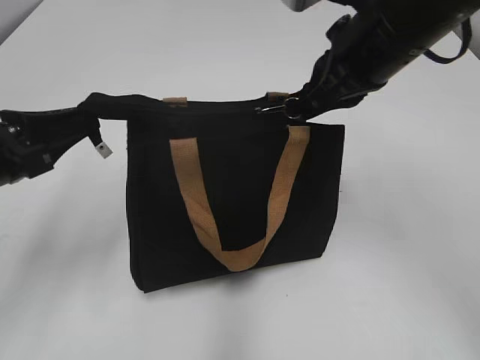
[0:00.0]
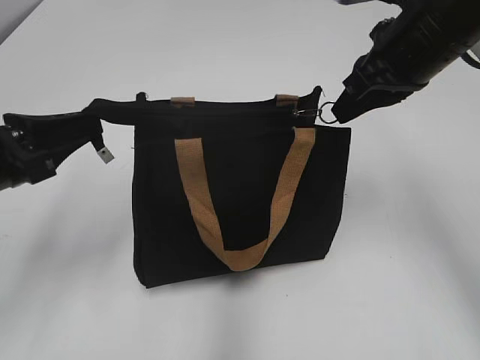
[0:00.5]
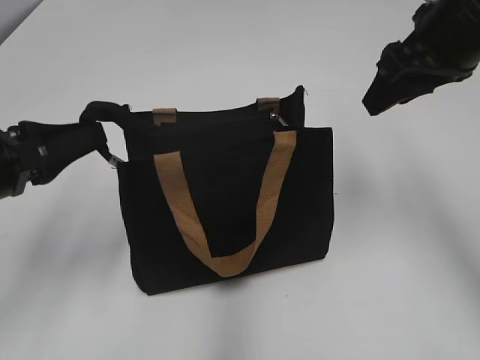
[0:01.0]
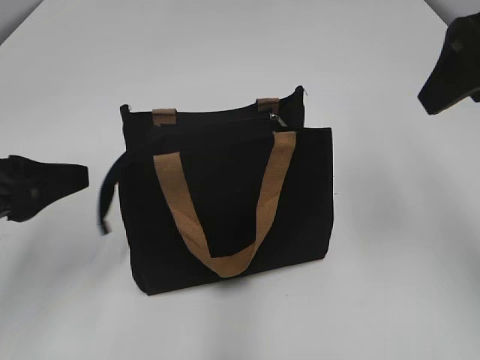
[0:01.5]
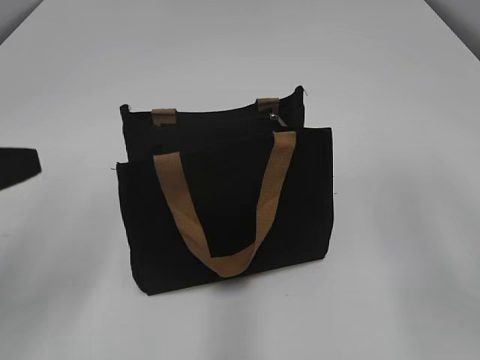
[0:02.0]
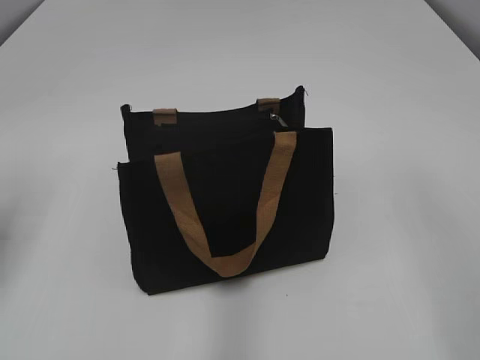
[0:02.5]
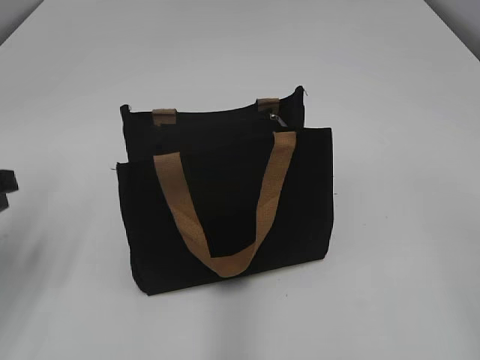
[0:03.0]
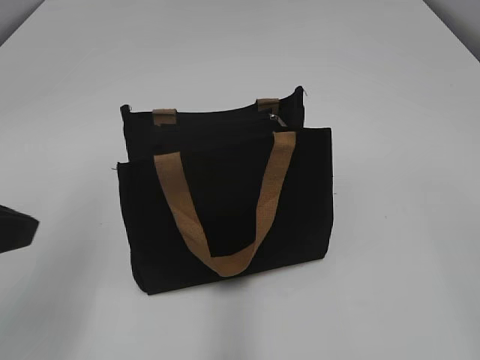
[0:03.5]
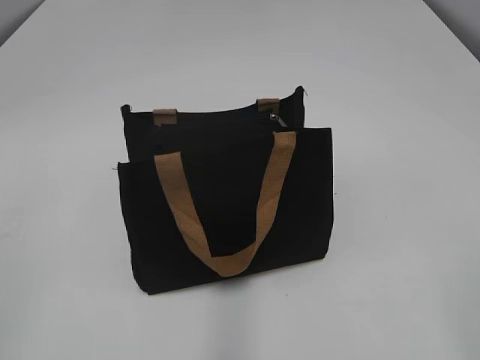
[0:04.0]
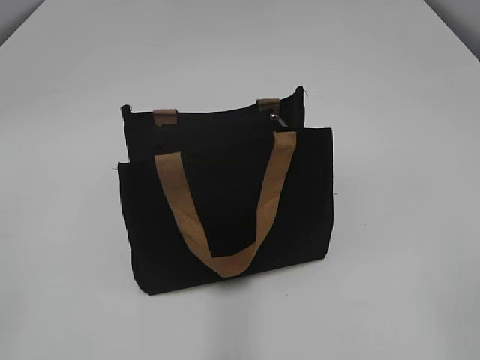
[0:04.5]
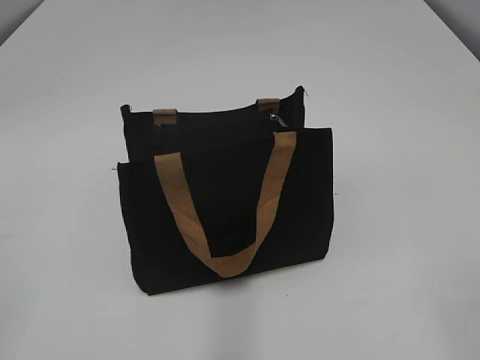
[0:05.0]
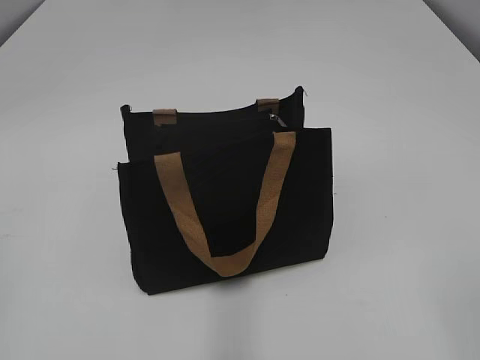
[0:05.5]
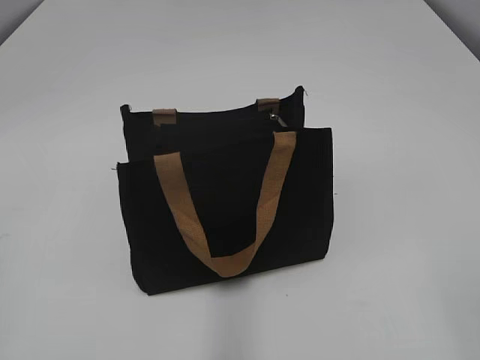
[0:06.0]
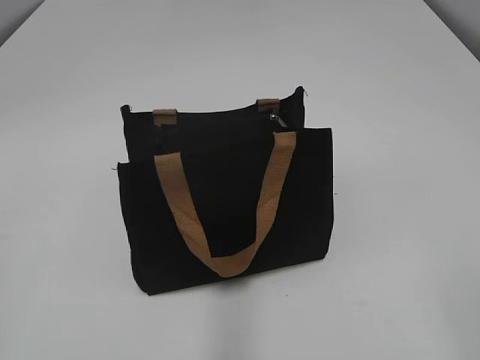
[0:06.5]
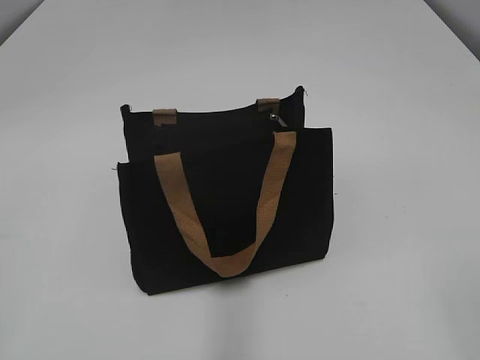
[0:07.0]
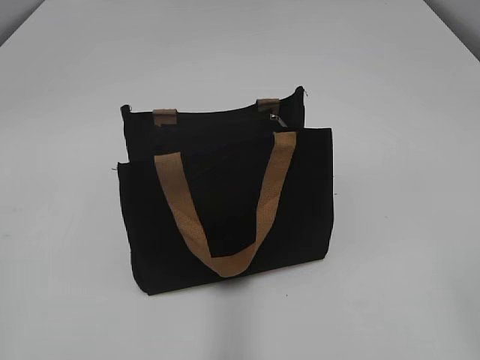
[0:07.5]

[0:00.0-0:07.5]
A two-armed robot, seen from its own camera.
Step, 0:01.0 to 0:01.5: Grab the zipper with your left hand.
0:00.0 to 0:02.0: The left gripper heads backward, covering about 5 cm, and opens up; the right gripper goes about 20 cm backward and to the right, and opens up.
0:02.0 to 0:04.0: The left gripper travels backward and upward by about 15 cm.

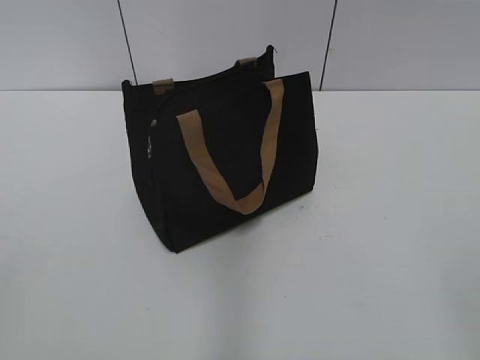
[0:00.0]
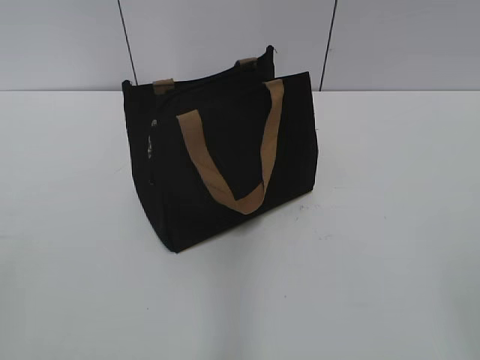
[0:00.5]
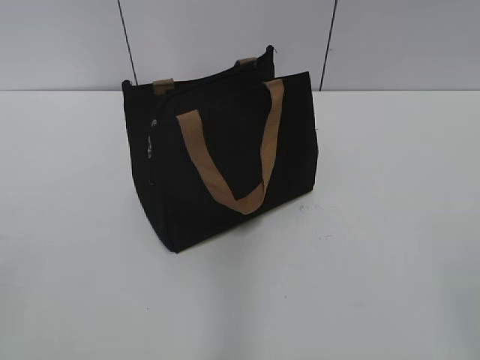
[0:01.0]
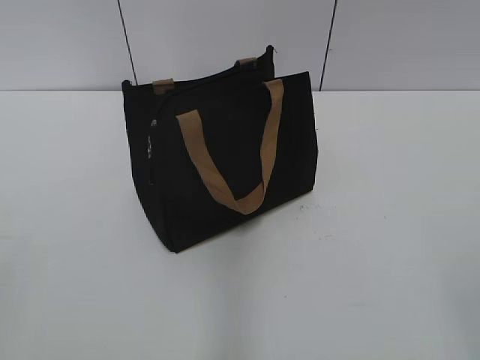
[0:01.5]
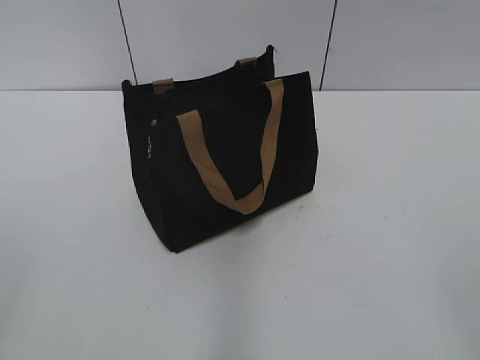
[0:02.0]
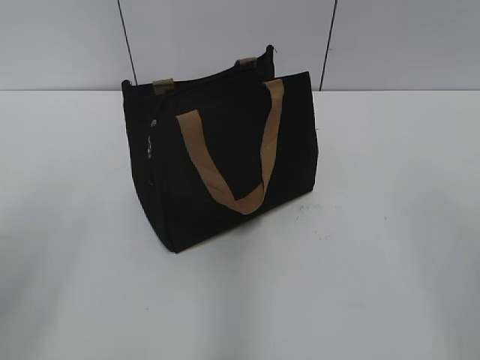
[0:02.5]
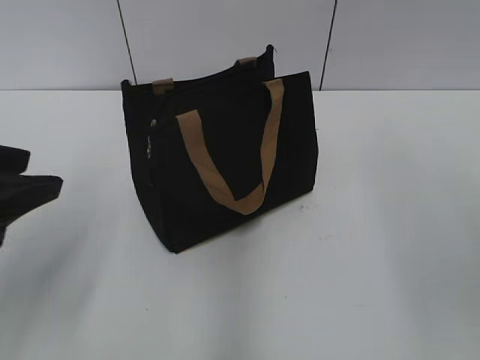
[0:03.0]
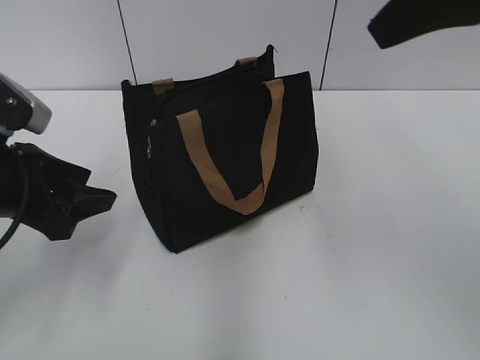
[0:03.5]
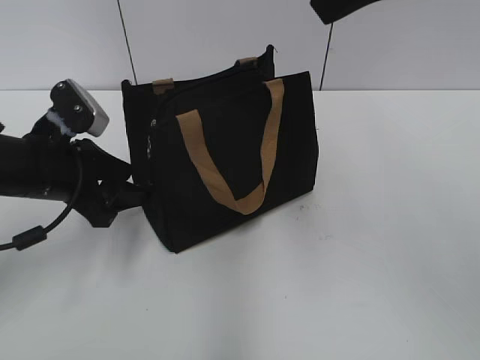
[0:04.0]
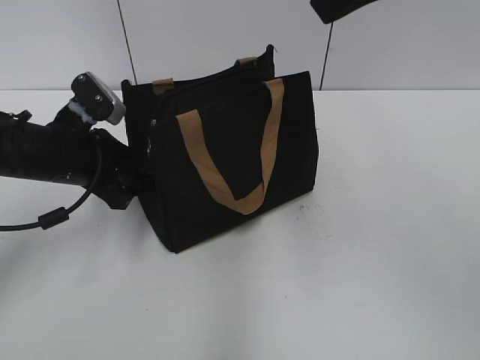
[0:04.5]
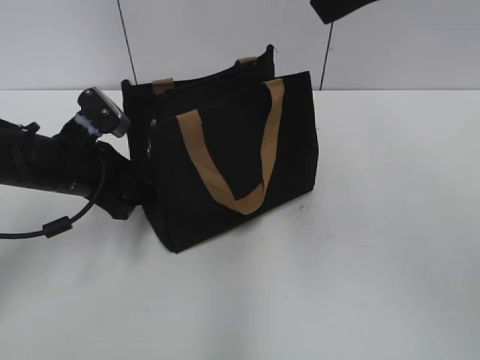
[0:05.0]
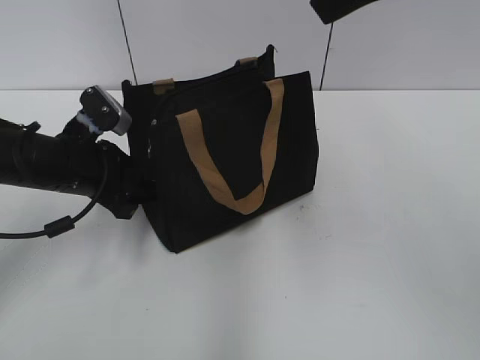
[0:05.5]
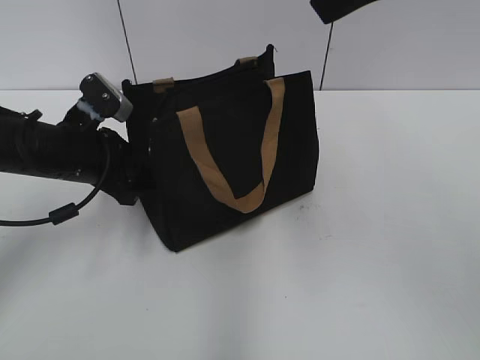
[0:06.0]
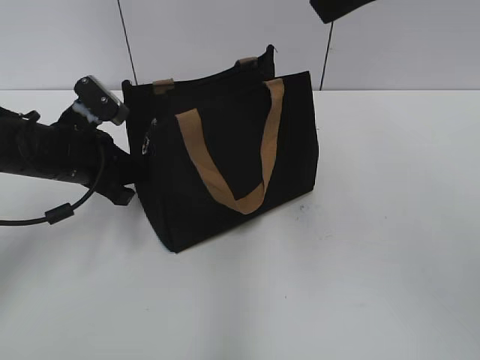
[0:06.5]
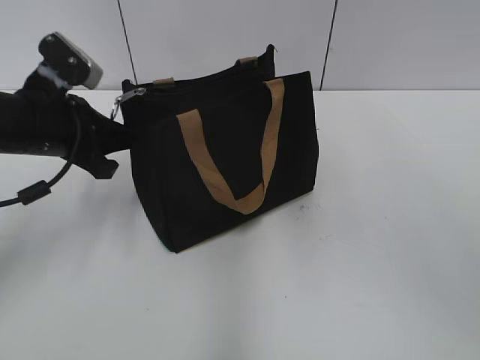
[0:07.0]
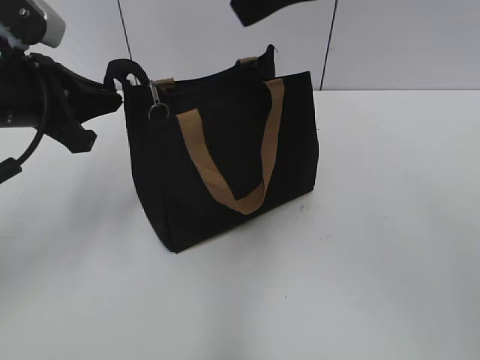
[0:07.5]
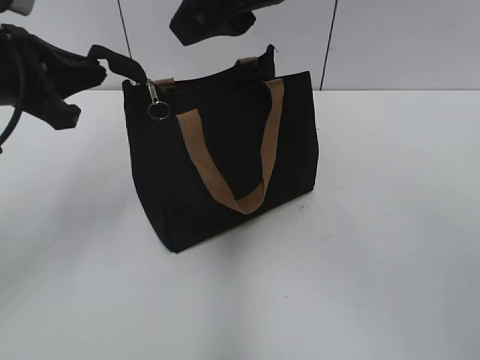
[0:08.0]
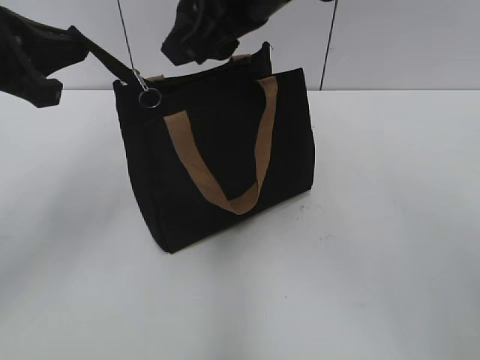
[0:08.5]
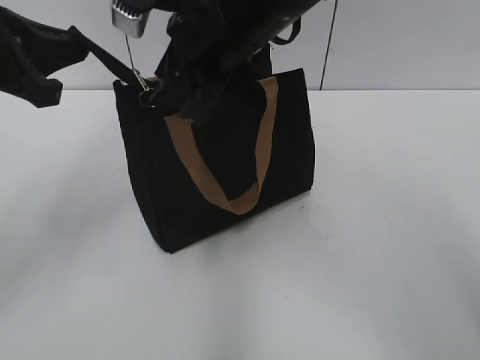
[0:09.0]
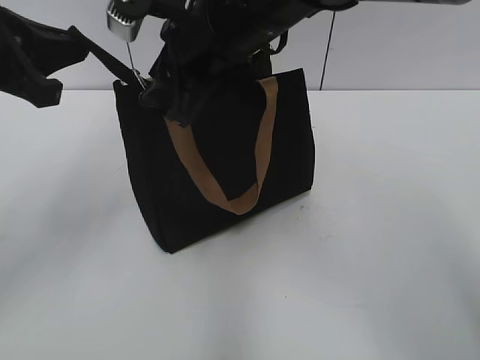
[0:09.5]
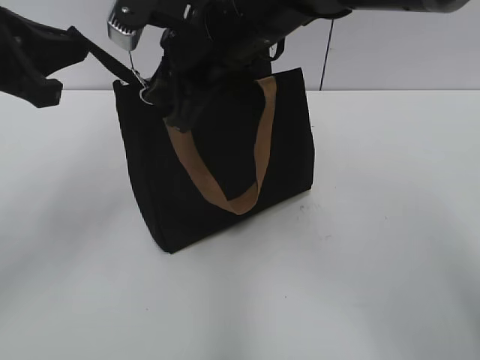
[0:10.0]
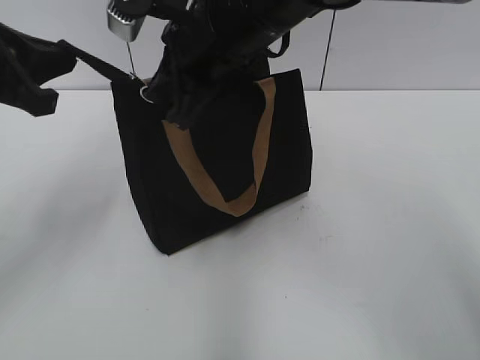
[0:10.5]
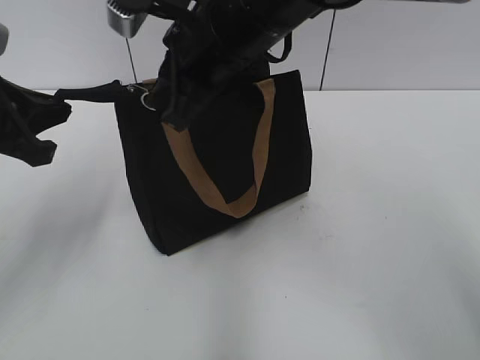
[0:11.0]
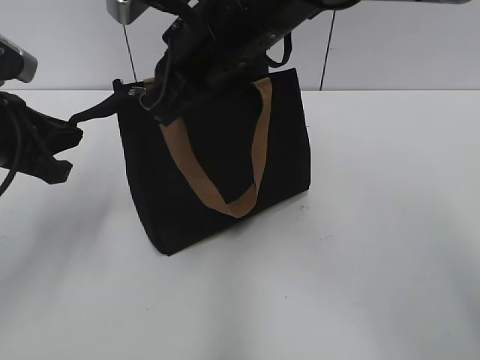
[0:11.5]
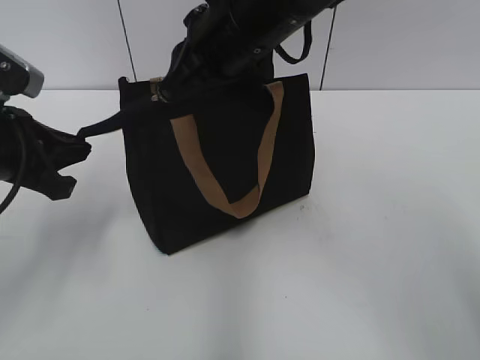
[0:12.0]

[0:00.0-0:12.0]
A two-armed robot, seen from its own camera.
0:02.0 to 0:04.0: The left gripper goes roughly 30 cm forward and downward.
0:04.0 to 0:06.0: There are only small adjustments of the grippers.
0:06.0 to 0:08.0: The right gripper is displaced to the left by approximately 10 cm. Meanwhile the left gripper is displaced upward by about 10 cm, and closes its fingers.
0:08.0 to 0:10.0: The right gripper goes some 10 cm downward, and closes.
0:10.0 to 0:12.0: The left gripper travels downward by some 10 cm.

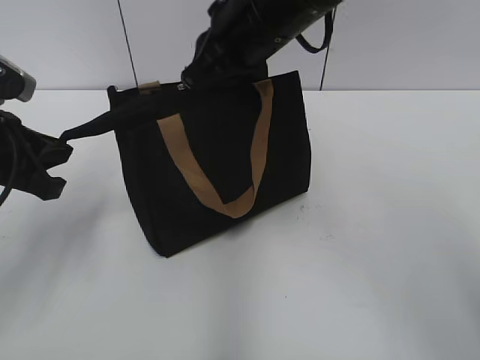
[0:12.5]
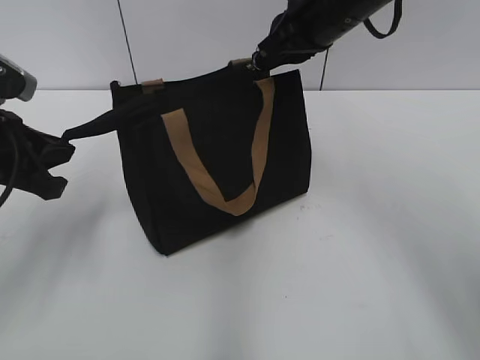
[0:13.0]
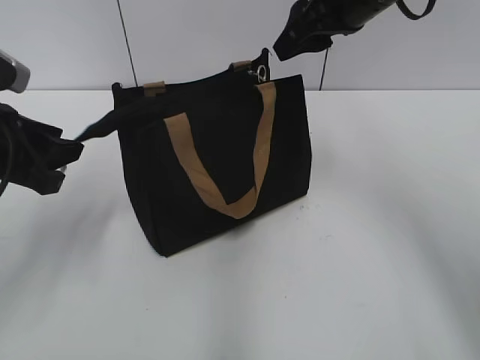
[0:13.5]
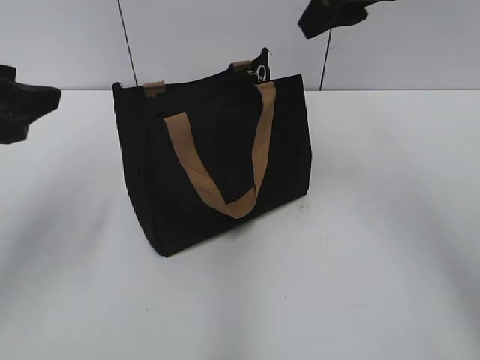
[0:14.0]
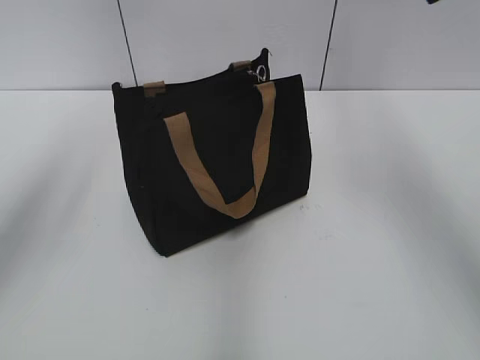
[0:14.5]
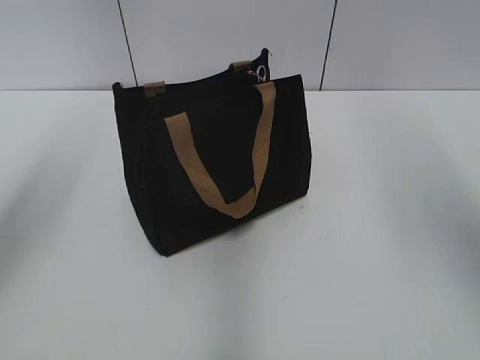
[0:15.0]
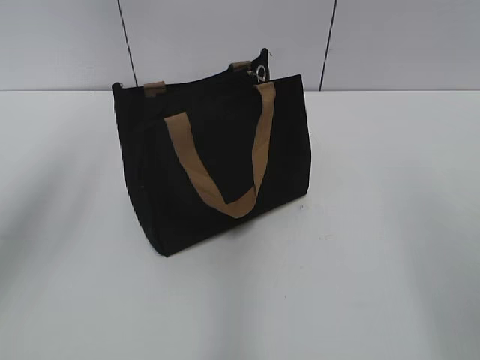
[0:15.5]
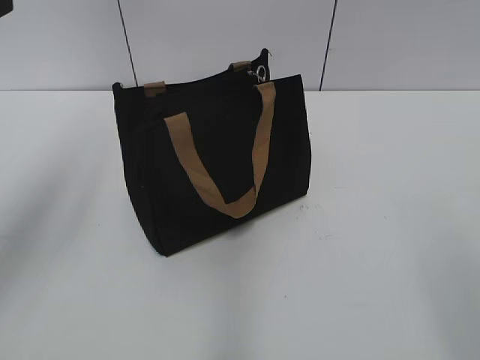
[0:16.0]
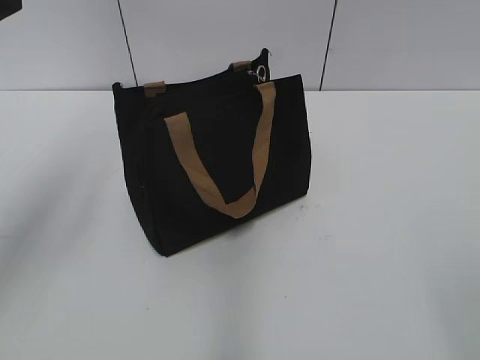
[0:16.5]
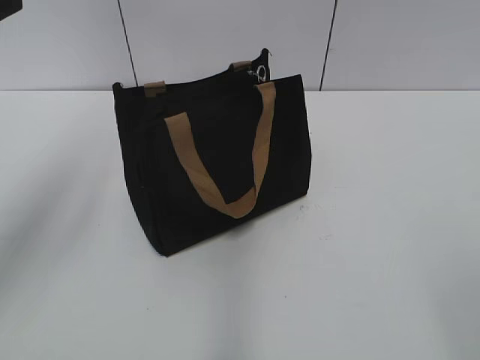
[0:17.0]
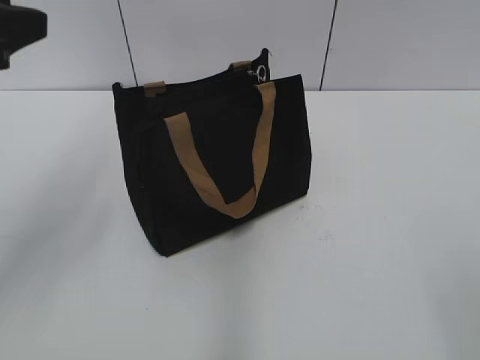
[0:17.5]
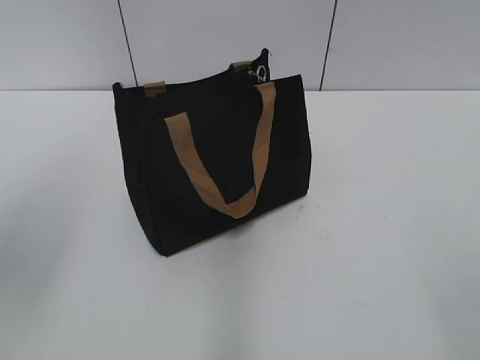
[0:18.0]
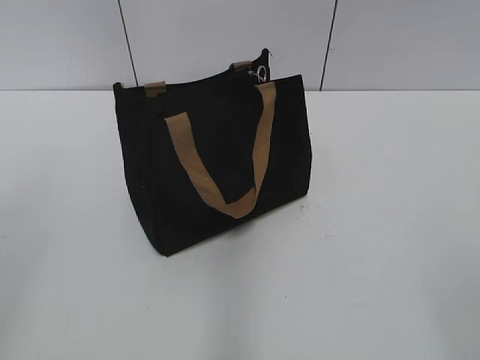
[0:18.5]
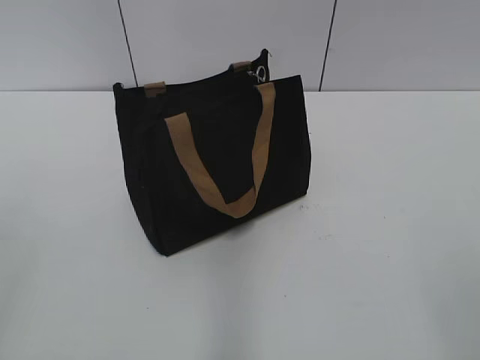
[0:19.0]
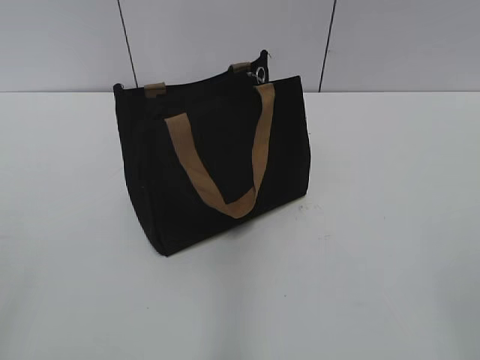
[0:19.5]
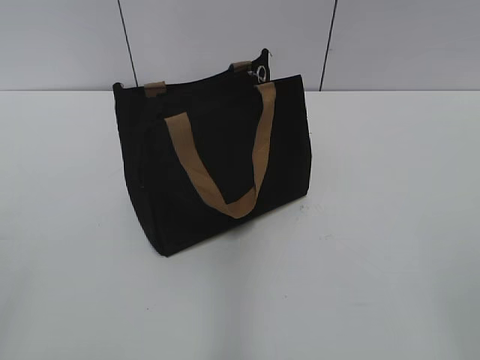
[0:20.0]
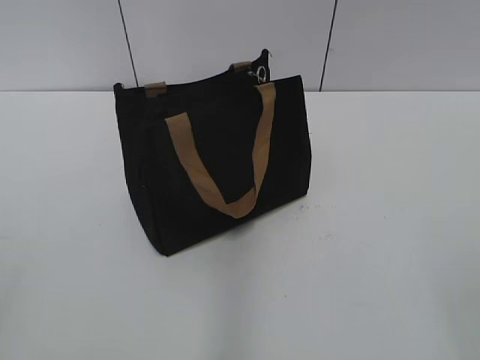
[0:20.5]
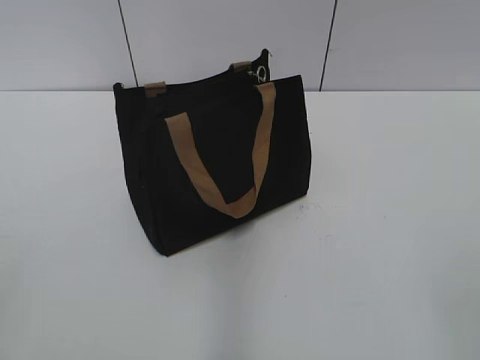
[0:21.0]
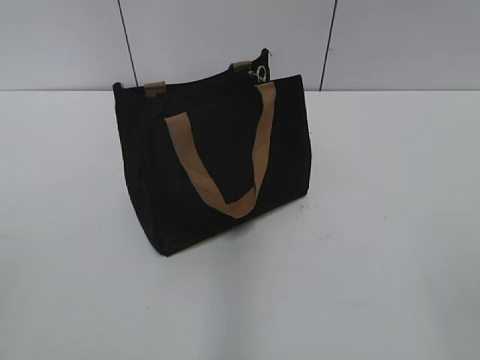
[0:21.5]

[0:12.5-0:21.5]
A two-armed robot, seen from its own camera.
0:12.5 to 0:14.5: The left gripper moves upward, some 15 cm, and opens up, while the right gripper is displaced to the right and upward by roughly 20 cm, and opens.
0:14.5 to 0:17.0: The right gripper heads backward, covering roughly 30 cm.
0:17.0 to 0:19.5: The left gripper is displaced backward by about 25 cm.
